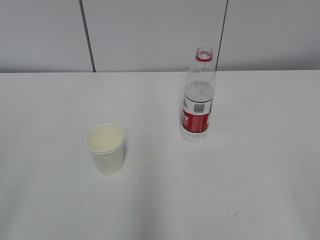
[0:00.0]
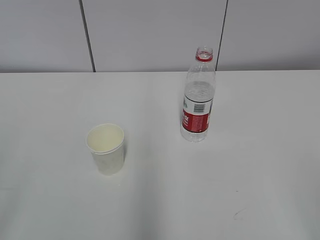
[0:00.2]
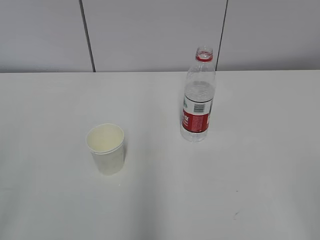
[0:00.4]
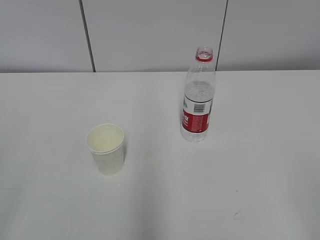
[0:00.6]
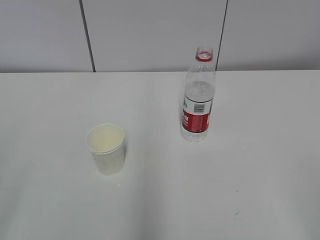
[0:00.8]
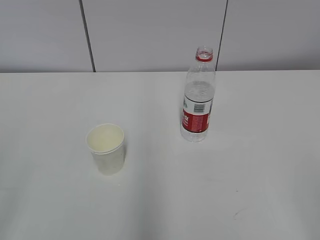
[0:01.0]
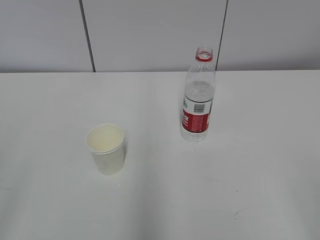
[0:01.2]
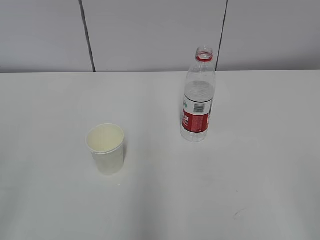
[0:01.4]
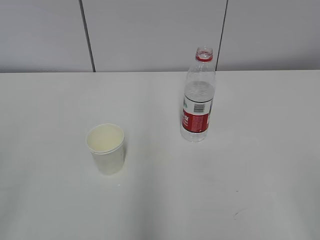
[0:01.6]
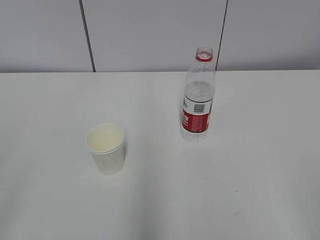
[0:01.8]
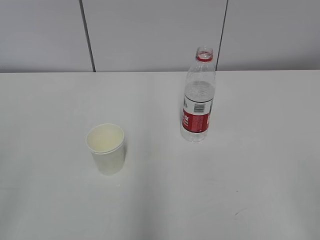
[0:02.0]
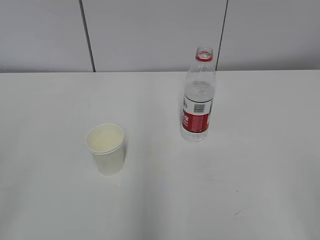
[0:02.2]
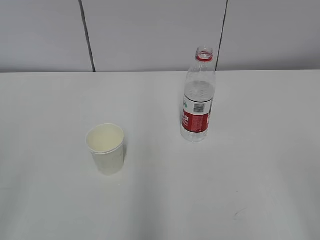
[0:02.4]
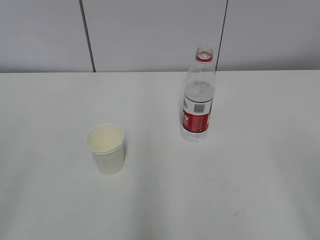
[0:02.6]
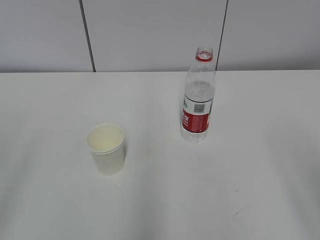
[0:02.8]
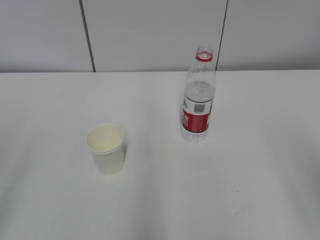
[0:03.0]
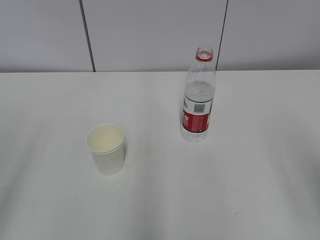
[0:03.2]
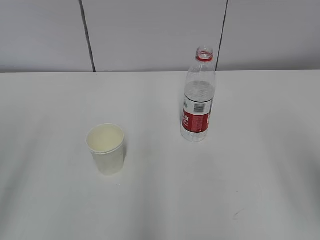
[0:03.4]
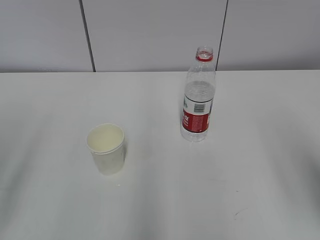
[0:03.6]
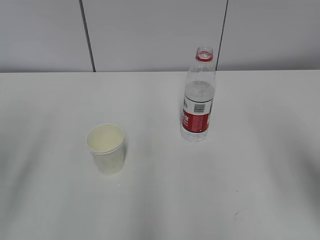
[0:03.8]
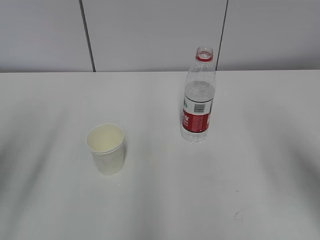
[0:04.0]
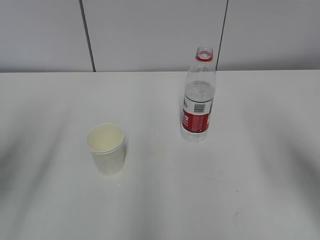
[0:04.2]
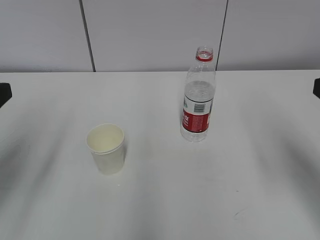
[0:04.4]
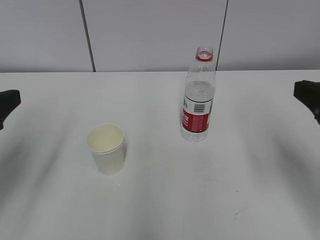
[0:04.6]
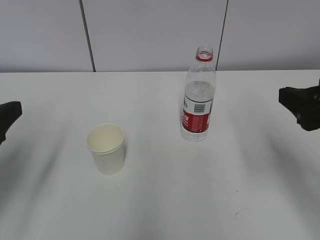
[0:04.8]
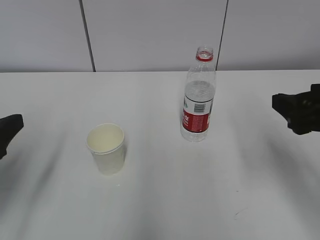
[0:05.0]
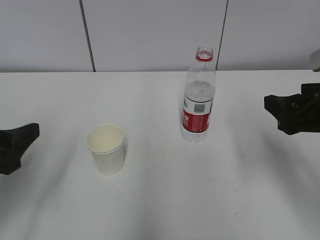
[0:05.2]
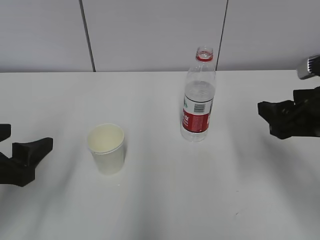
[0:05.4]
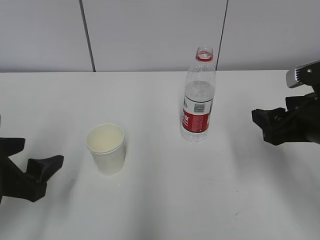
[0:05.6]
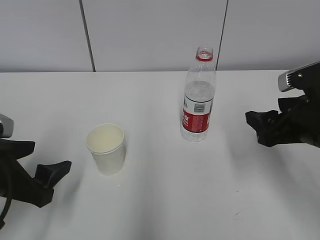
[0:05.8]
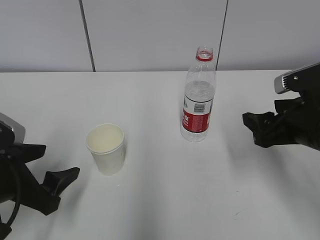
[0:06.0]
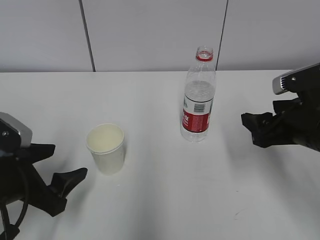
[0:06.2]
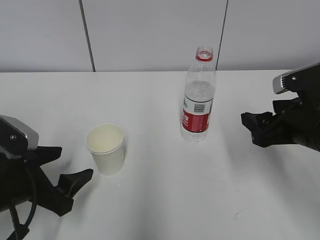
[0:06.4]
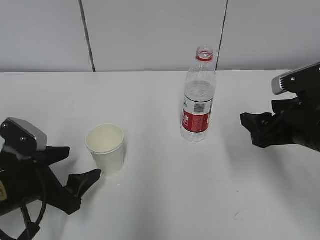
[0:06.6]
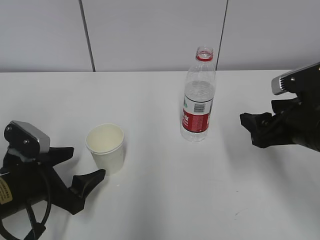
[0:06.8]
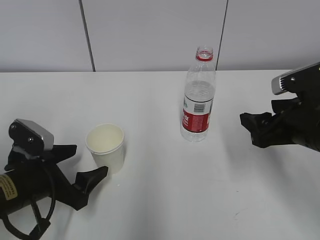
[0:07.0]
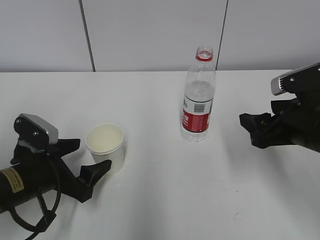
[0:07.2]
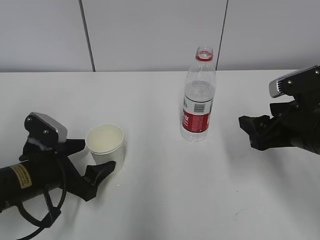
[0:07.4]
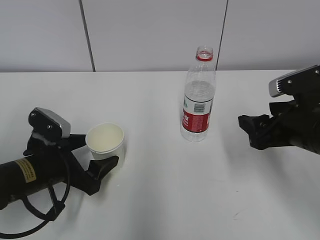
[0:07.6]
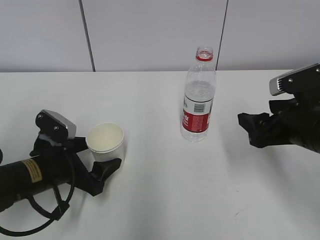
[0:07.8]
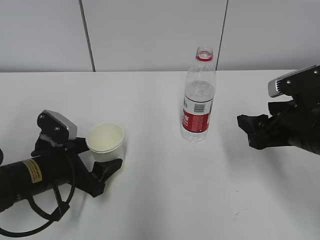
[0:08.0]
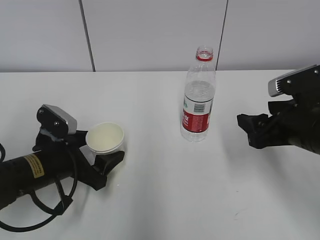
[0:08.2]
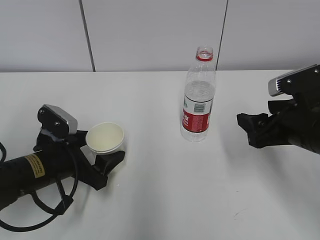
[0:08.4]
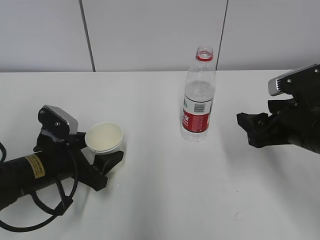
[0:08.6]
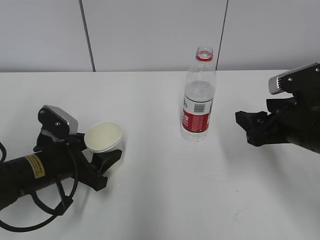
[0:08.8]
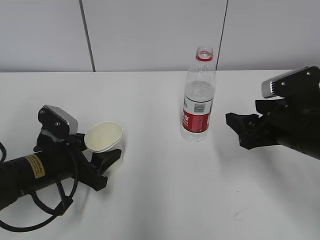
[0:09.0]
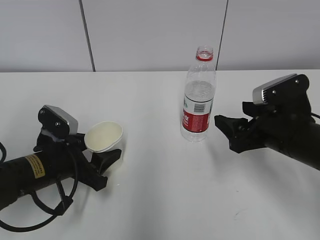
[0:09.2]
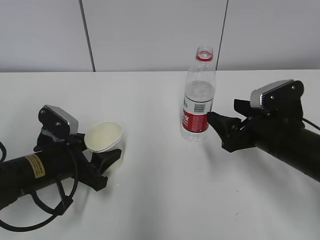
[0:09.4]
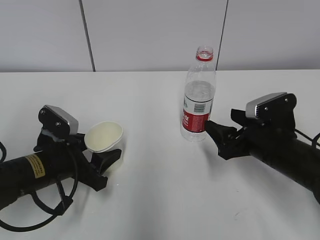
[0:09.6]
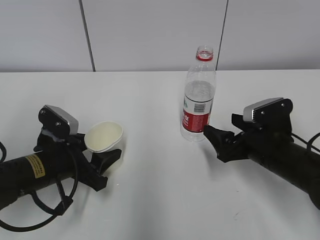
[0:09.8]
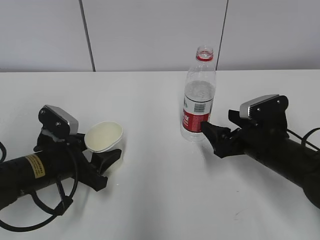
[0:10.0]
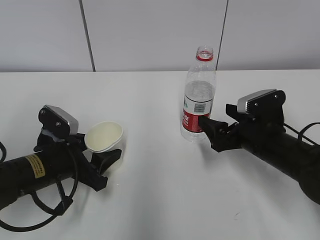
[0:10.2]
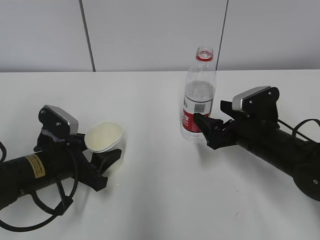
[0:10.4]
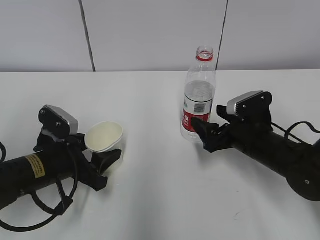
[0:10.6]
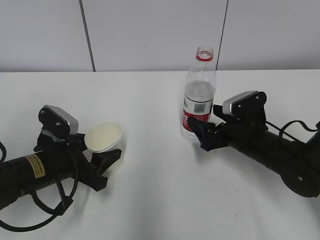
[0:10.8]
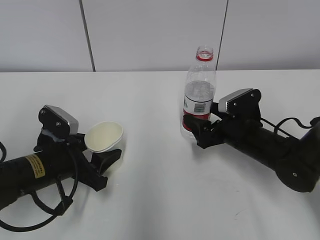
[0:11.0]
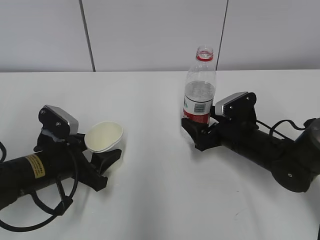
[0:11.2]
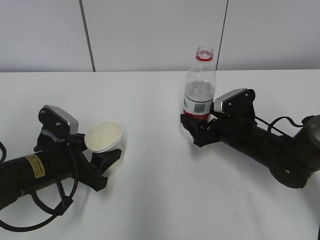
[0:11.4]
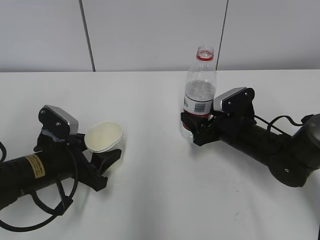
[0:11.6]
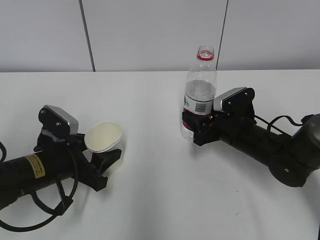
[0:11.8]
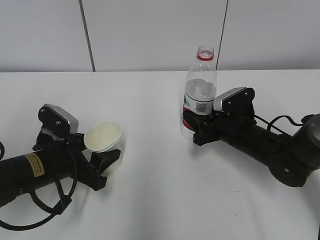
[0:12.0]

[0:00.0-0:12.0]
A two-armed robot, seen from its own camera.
Step, 0:00.0 to 0:10.0: Grab the paper cup with the left hand.
0:03.0 to 0:04.4: The two grippers go about 15 cm forward.
0:04.4 to 0:06.0: The left gripper shifts roughly 10 cm downward. The right gripper heads downward and forward, covering approximately 15 cm.
0:06.0 to 0:07.6: The left gripper is displaced forward by some 5 cm.
0:07.6 to 0:09.0: The left gripper closes up.
0:09.0 to 0:10.4: The right gripper goes approximately 10 cm downward and forward.
0:10.4 to 0:12.0: The right gripper moves approximately 5 cm, and closes.

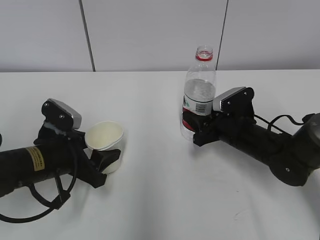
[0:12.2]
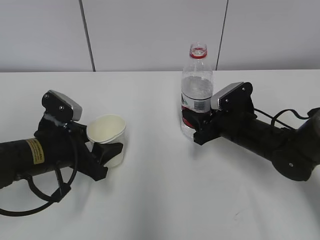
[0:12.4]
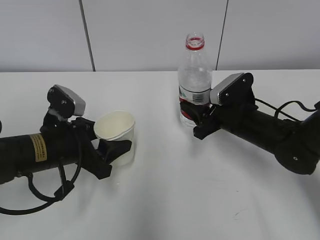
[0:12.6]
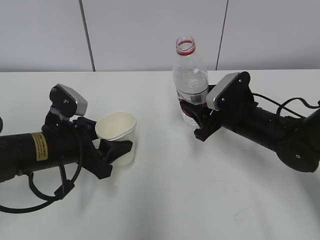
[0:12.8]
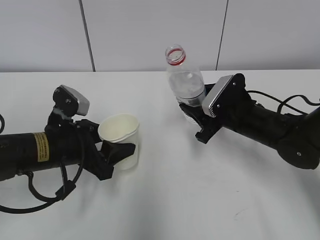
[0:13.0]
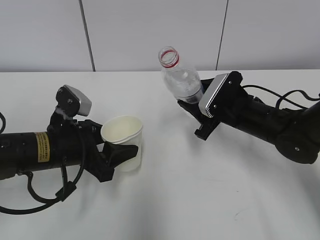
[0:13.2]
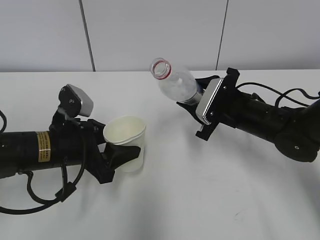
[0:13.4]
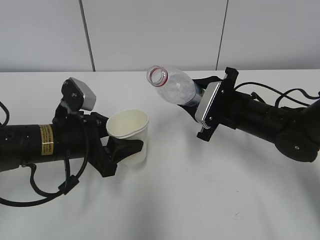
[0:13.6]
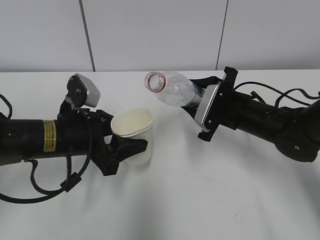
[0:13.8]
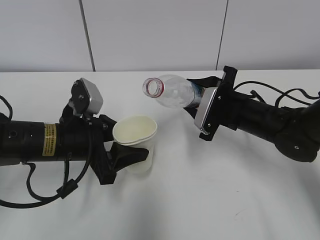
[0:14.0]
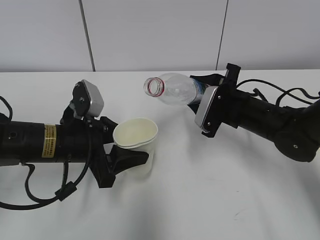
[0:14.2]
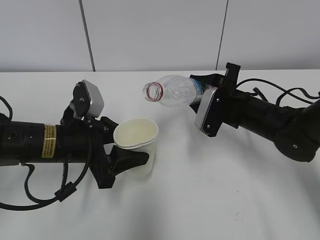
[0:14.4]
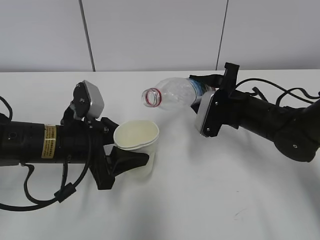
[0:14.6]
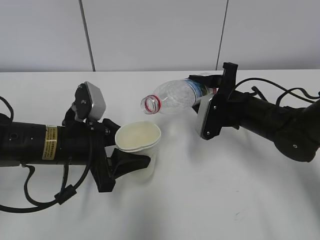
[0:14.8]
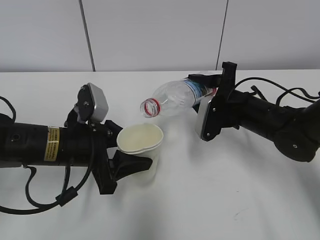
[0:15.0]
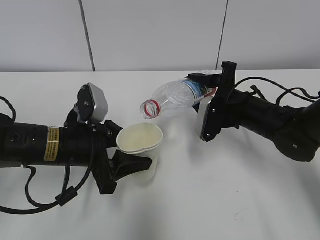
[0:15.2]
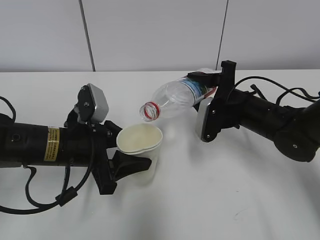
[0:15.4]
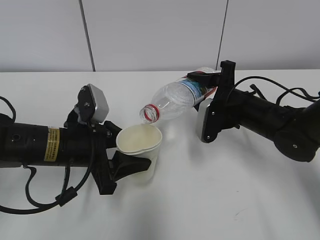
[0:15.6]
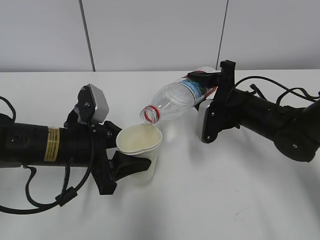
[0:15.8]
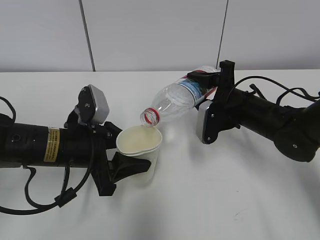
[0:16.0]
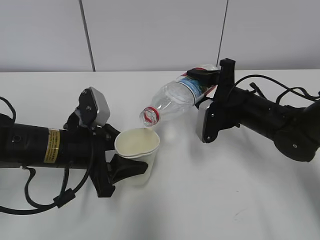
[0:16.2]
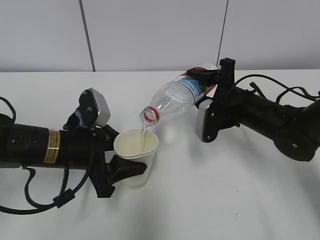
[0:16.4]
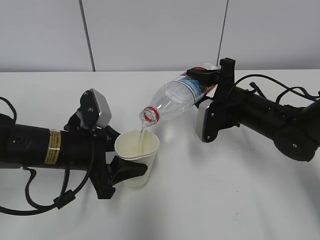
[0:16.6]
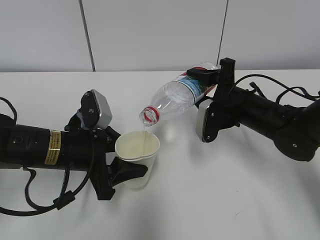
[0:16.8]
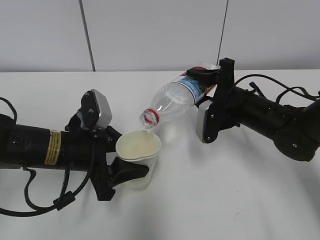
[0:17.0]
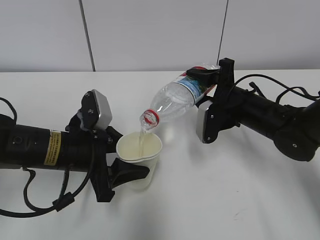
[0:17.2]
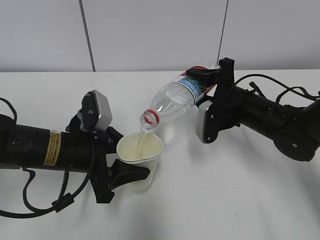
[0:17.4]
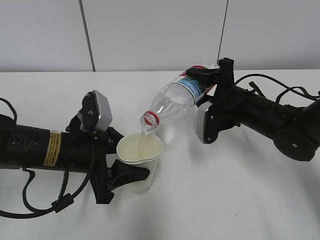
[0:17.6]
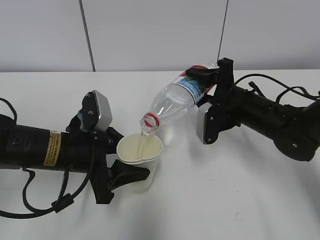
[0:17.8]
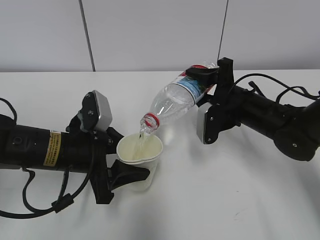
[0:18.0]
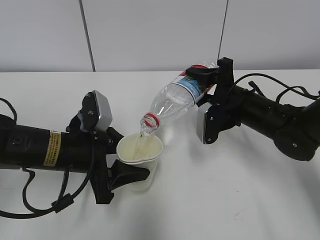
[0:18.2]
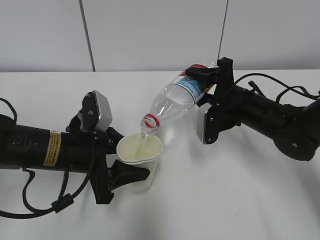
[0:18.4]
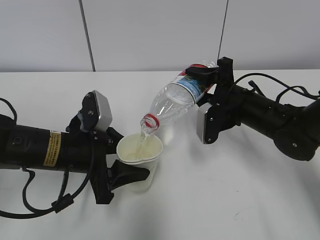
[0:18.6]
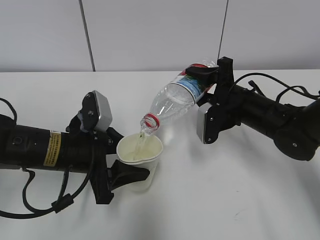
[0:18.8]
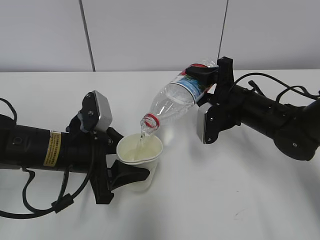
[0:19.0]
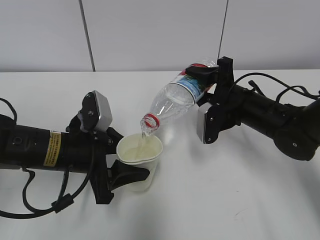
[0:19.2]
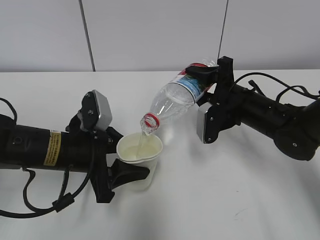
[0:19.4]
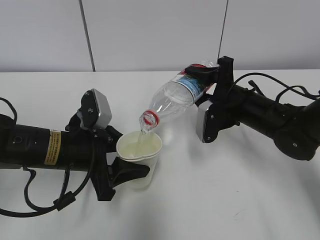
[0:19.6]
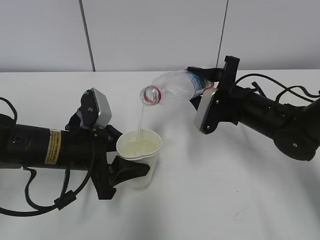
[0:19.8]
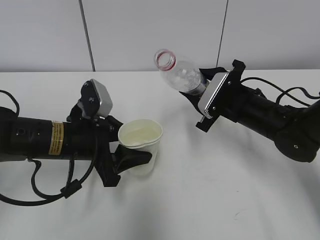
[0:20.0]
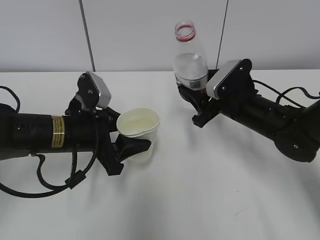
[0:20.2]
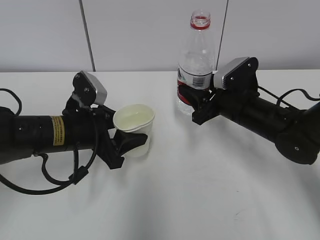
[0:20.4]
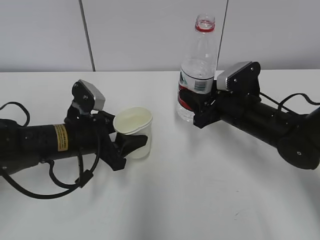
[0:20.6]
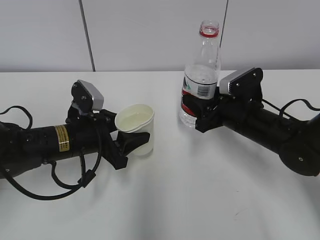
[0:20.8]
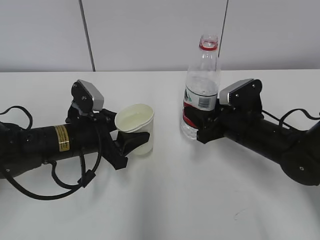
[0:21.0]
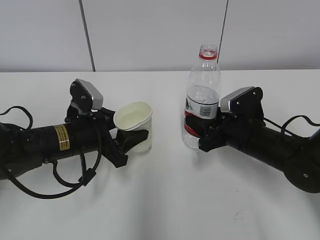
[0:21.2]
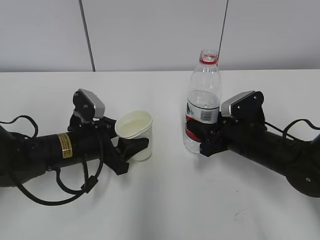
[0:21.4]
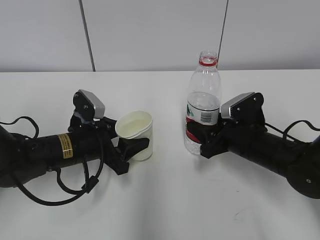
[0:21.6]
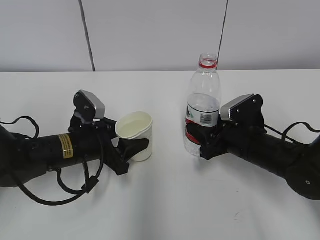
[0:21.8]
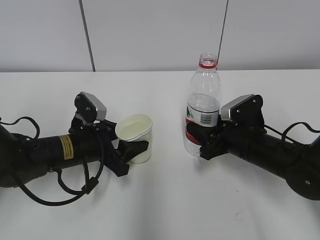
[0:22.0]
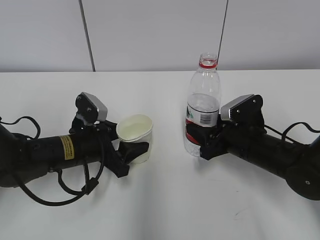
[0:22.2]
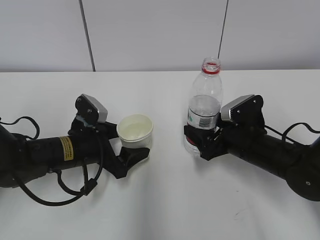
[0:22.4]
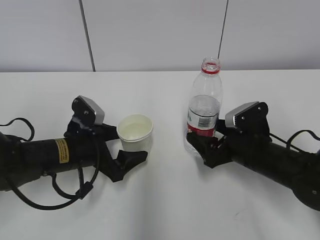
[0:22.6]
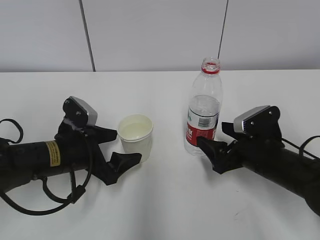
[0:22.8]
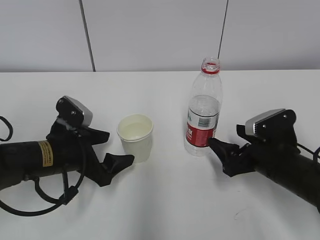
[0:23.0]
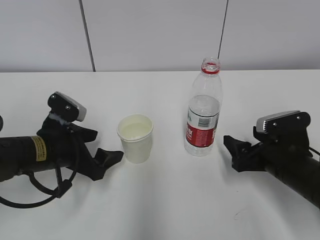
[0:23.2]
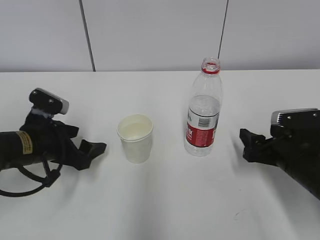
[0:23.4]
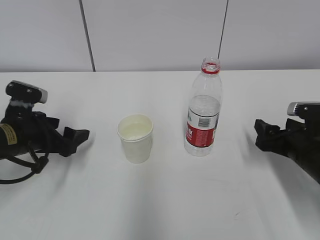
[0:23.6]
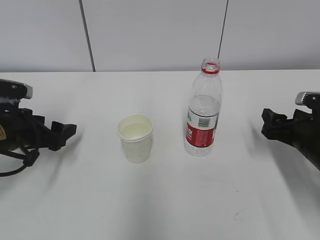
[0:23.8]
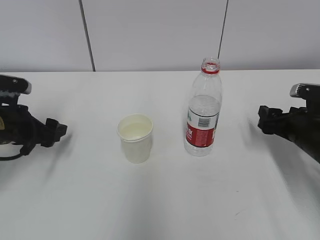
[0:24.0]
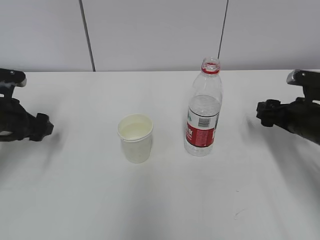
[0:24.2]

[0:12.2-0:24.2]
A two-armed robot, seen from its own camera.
Step, 0:13.6 to 0:16.4: Fill water with the left hand.
Step, 0:13.6 to 0:16.4: Pour water with the right hand.
Step, 0:17.2 to 0:18.6: Place the paper cup with the left hand.
0:12.2 to 0:13.8: The left gripper ends up about 5 cm from where it was, while the right gripper heads upward, covering approximately 5 cm.
0:15.2 to 0:19.8: There are only small adjustments of the grippers.
0:19.8 to 0:21.2: The right gripper shifts by about 5 cm.
0:21.2 to 0:22.6: The right gripper opens its fingers, while the left gripper opens up.
0:22.6 to 0:24.2: The right gripper moves to the right, roughly 10 cm; the left gripper shifts roughly 15 cm to the left and upward.
